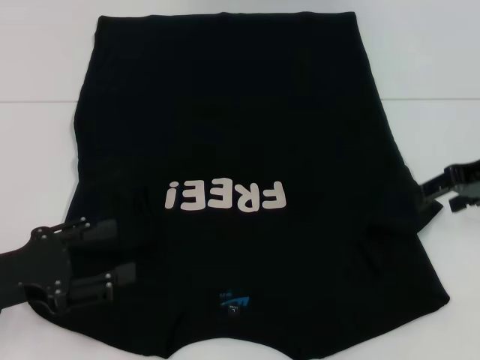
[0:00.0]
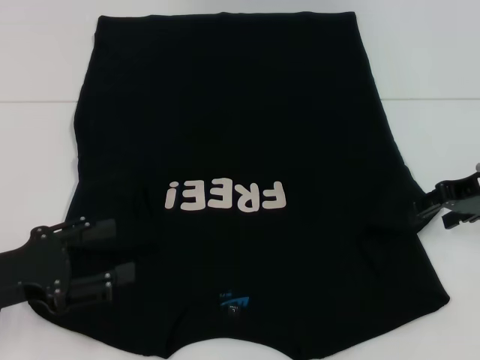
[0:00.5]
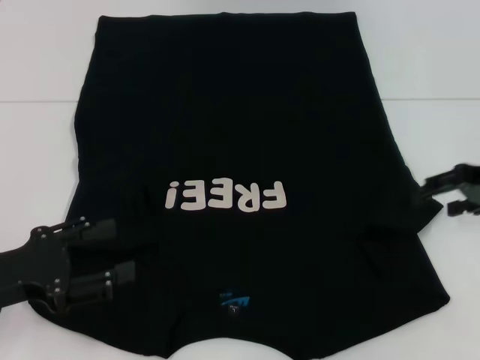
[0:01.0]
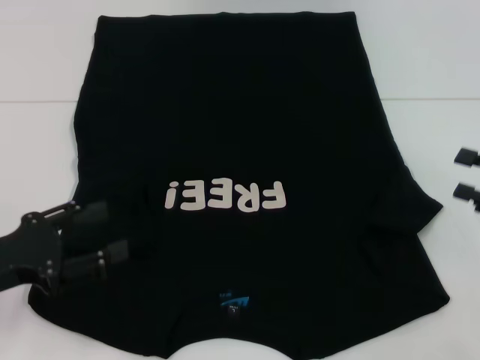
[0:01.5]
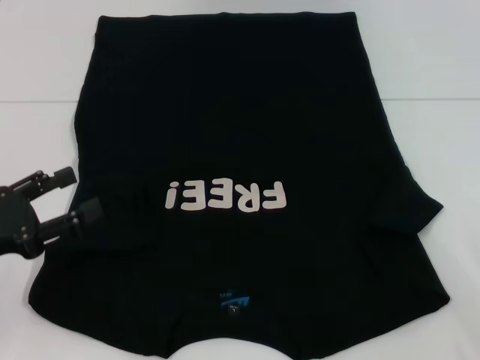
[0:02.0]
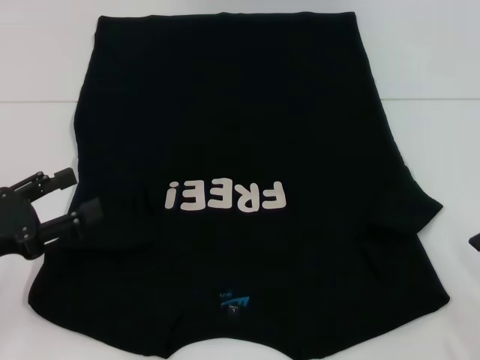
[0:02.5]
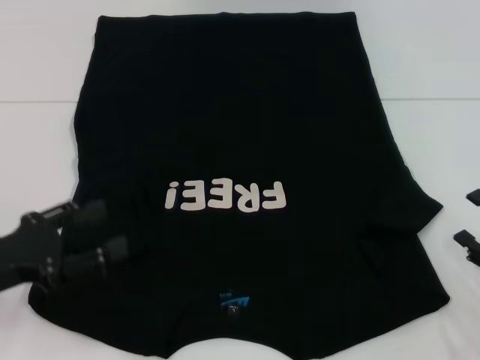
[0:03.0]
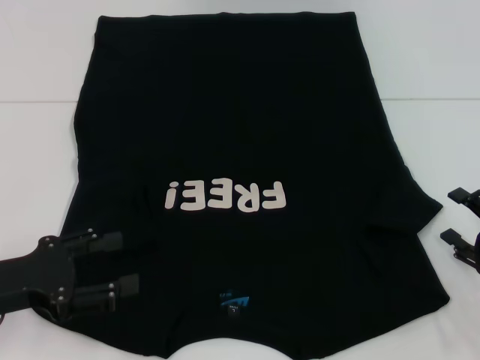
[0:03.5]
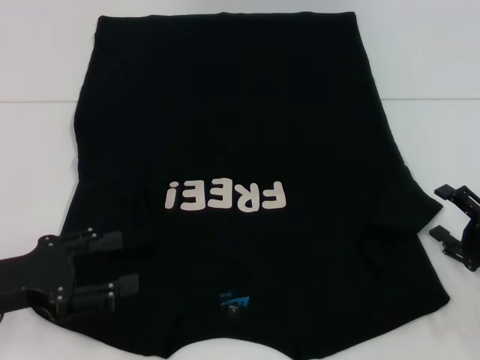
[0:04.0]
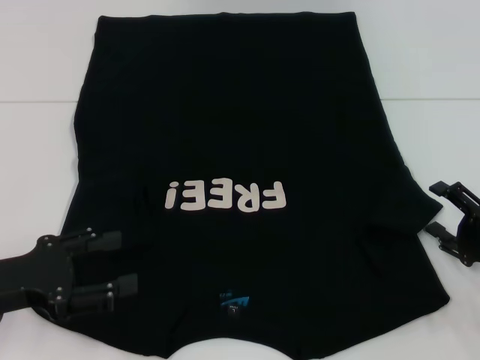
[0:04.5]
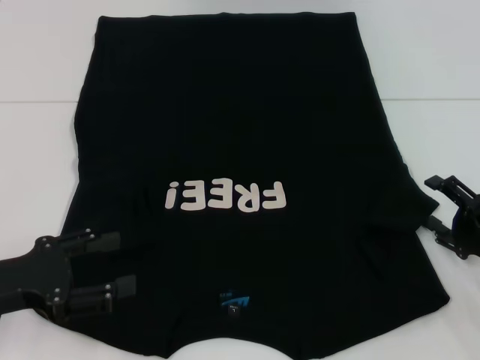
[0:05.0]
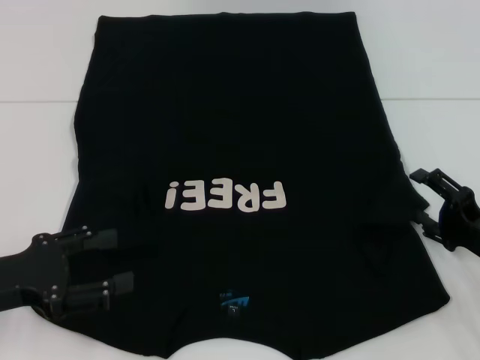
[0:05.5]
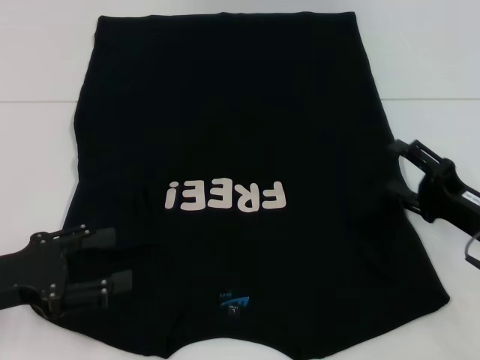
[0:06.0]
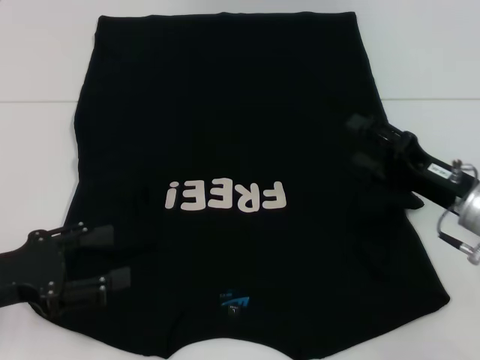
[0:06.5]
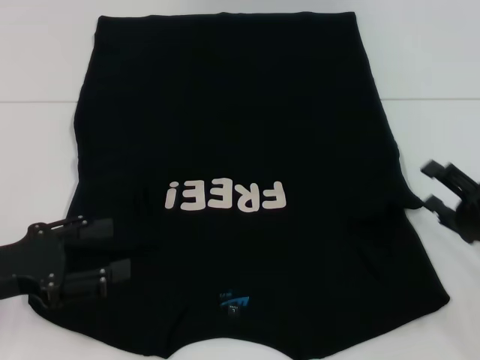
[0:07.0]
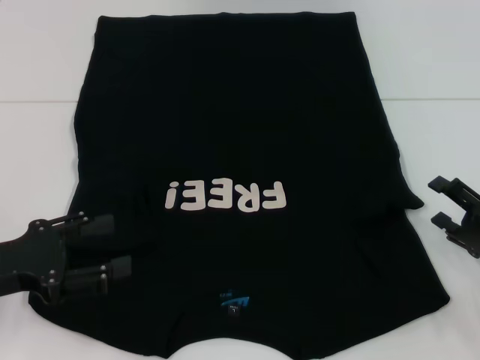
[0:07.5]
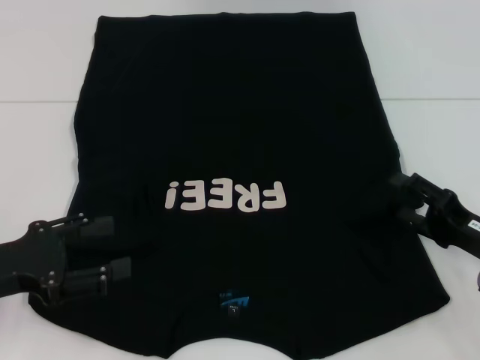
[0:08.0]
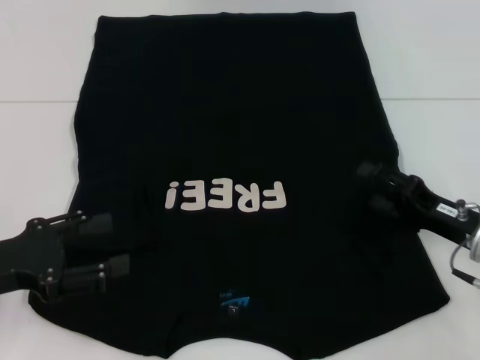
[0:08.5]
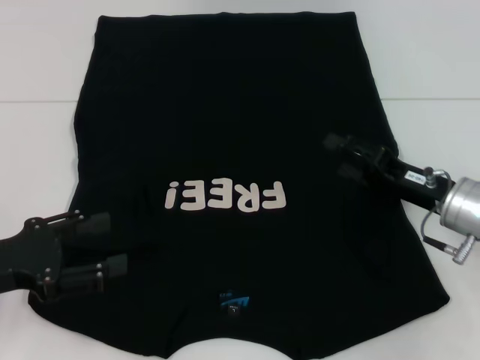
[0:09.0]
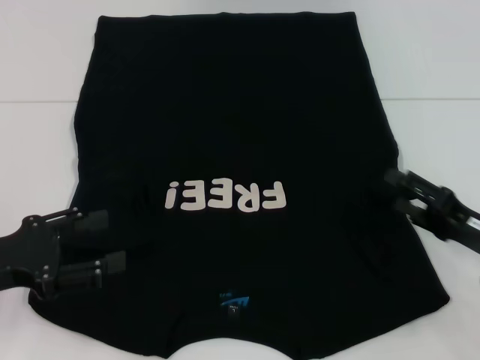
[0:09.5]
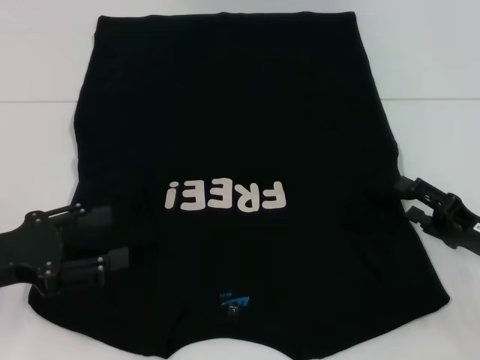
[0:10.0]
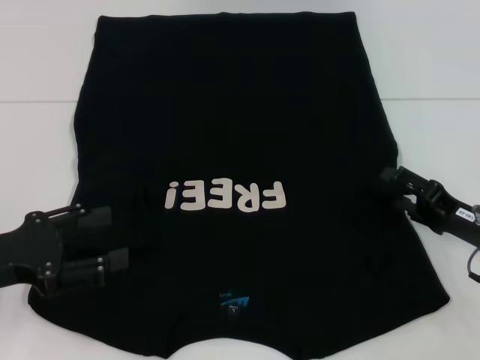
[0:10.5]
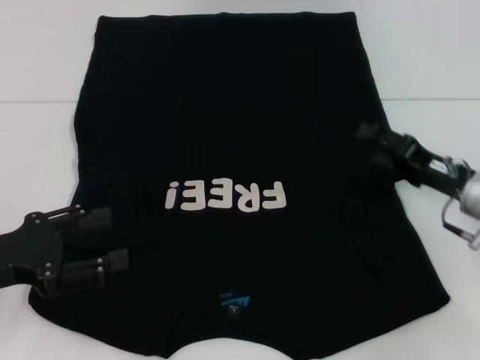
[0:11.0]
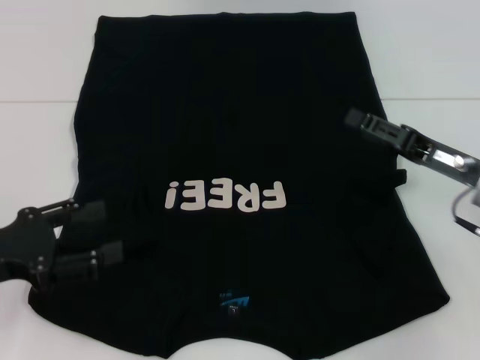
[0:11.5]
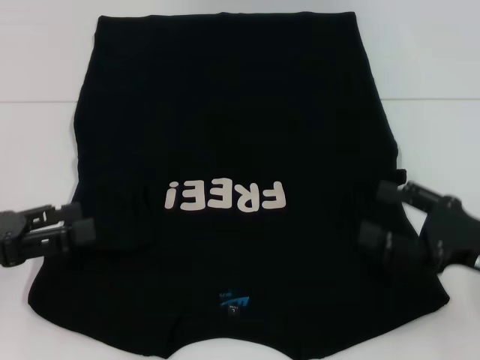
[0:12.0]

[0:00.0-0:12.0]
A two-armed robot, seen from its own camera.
Step, 0:00.0 to 0:06.5: Fold the bottom right sleeve with your right hand.
0:00.0 to 0:02.0: The right gripper goes some 25 cm backward and downward.
0:02.0 to 0:04.0: The right gripper goes approximately 5 cm forward.
0:04.0 to 0:06.0: The right gripper moves about 5 cm.
0:10.0 to 0:12.0: The right gripper goes some 5 cm upward, and reaches some 5 cm forward, then returns.

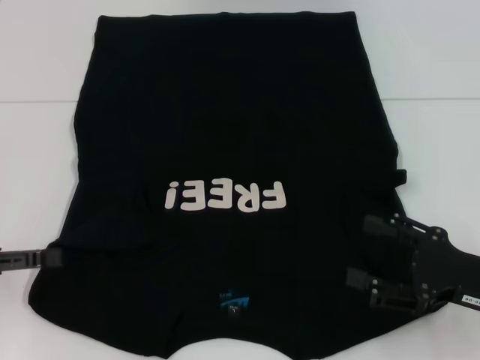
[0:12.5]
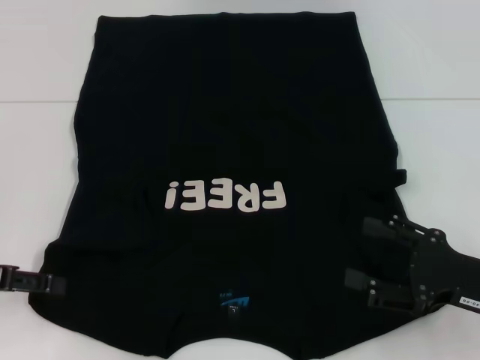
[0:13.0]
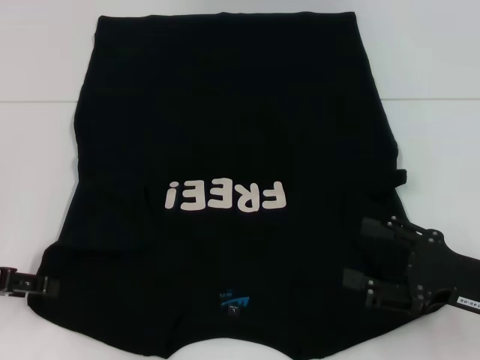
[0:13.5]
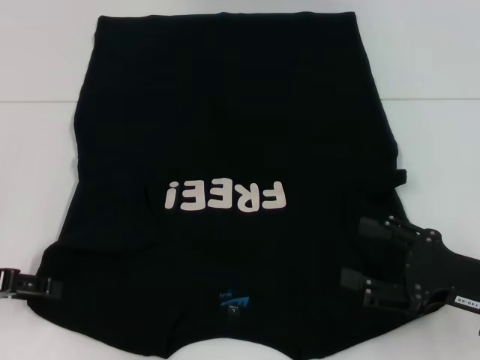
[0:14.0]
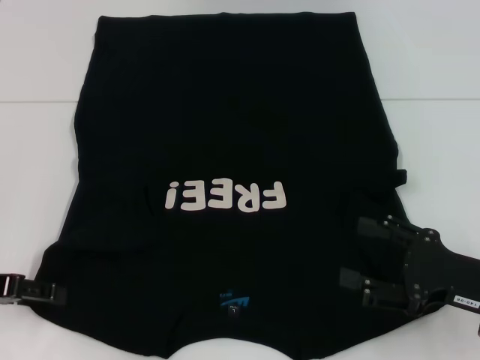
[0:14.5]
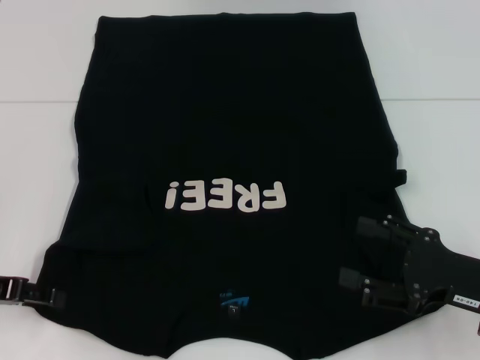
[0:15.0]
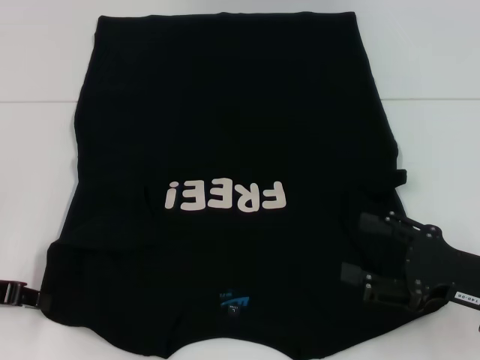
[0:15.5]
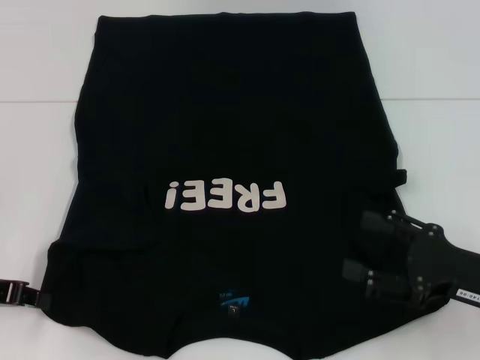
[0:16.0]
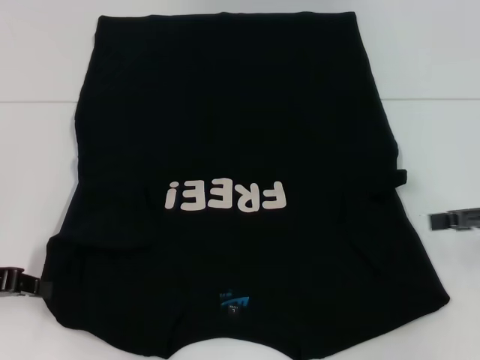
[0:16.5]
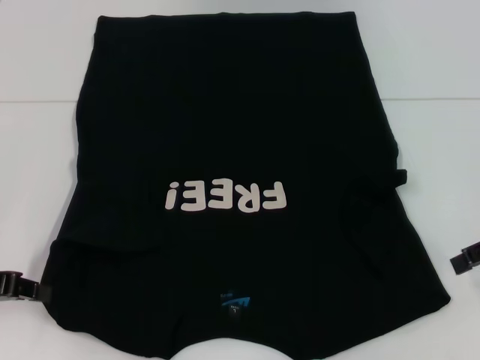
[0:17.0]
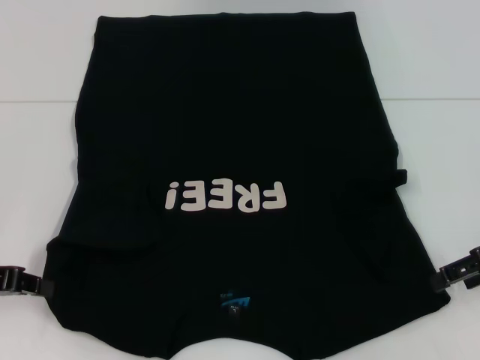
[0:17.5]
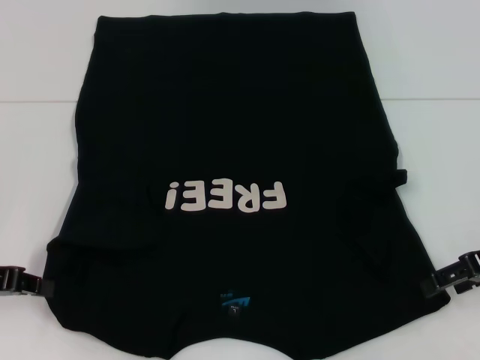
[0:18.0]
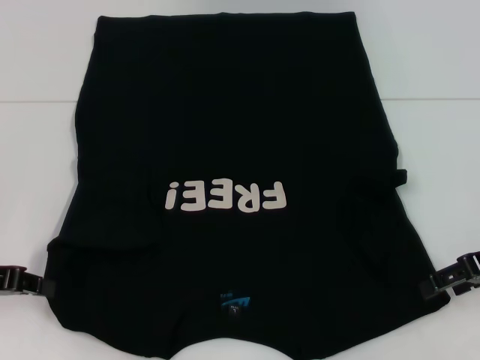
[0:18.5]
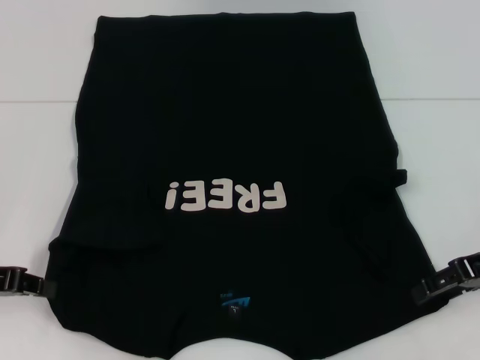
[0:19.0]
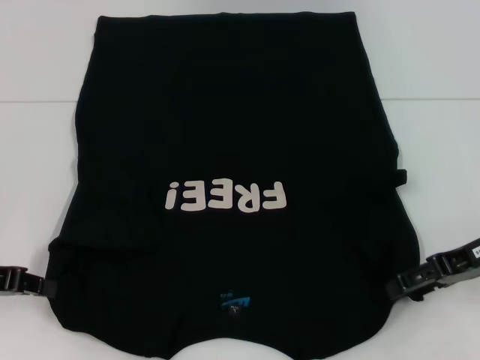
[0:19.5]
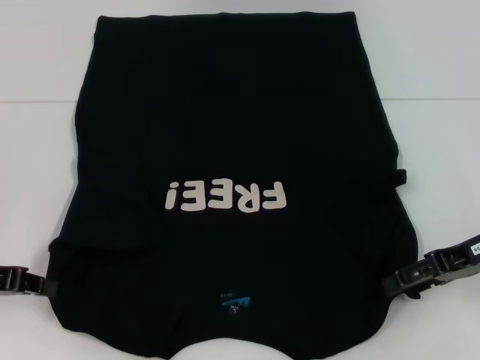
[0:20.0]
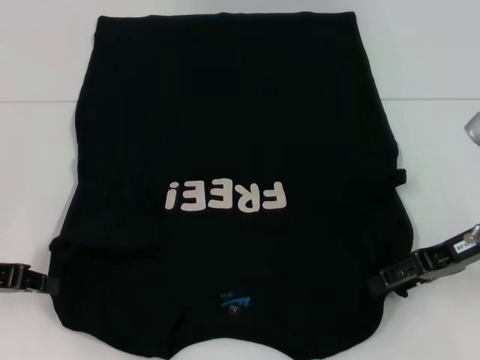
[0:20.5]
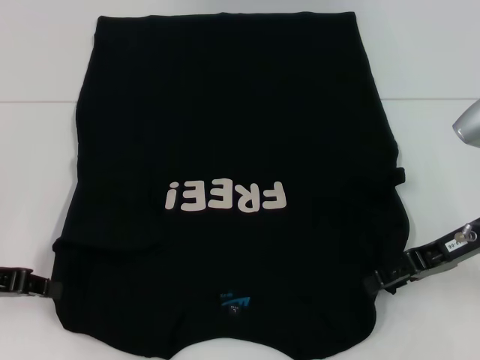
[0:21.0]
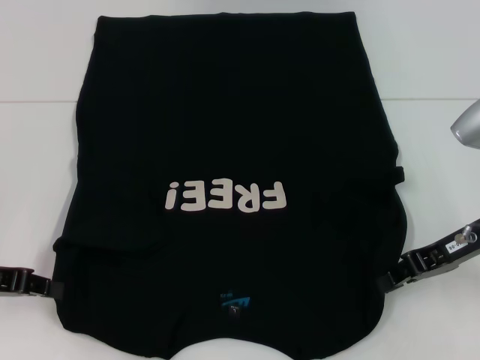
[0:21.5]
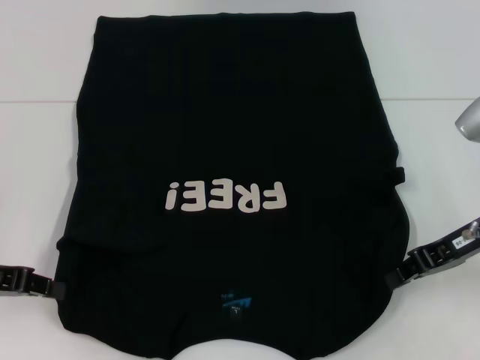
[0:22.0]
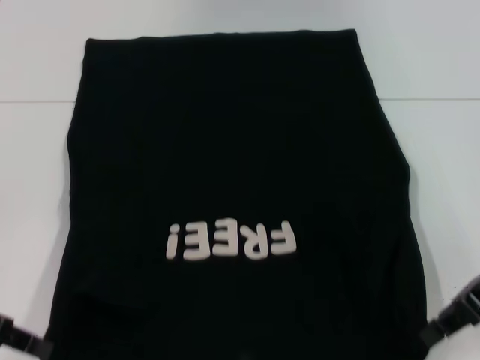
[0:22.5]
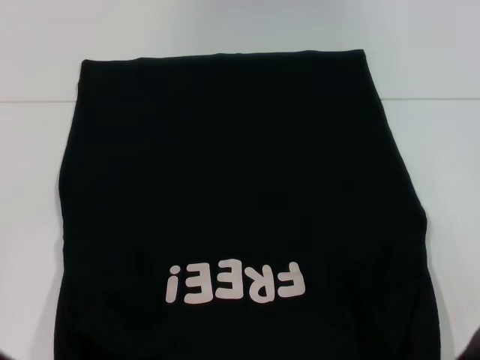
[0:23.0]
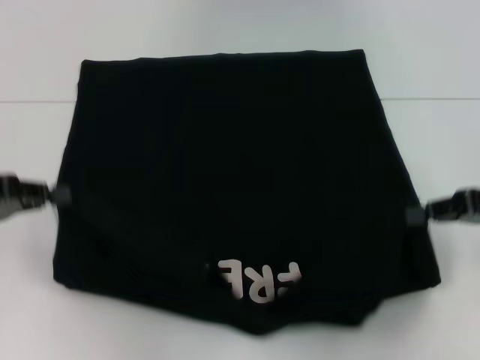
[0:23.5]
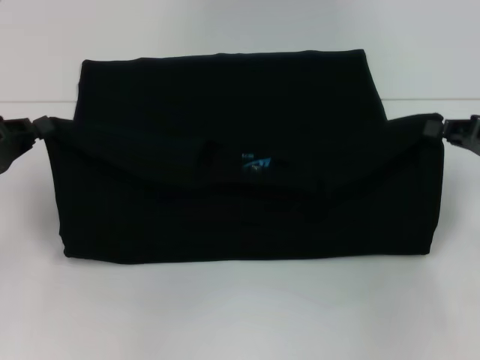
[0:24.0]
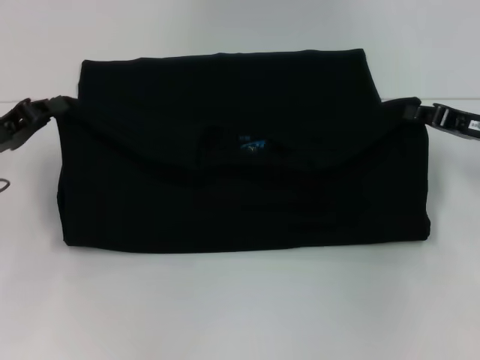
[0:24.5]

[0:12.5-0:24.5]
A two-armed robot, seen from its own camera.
Step, 0:12.5 to 0:16.5: Grab the bottom left corner with your left hand.
Step, 0:17.0 to 0:21.5: Grab the bottom right corner with your right hand.
0:14.5 to 0:16.5: The left gripper closes its fingers; the right gripper heads upward, forward and to the right, covering about 15 cm.
0:18.5 to 0:20.5: There are only small adjustments of the grippers.
0:20.5 to 0:22.5: The right gripper closes.
0:22.5 to 0:24.5: Both grippers move forward, some 5 cm.

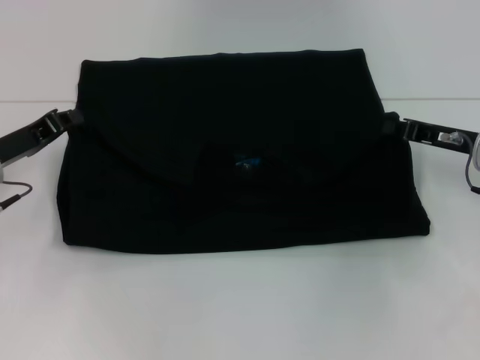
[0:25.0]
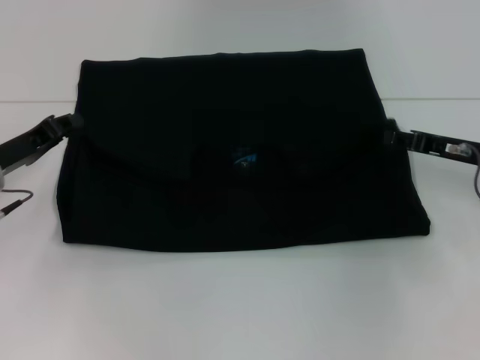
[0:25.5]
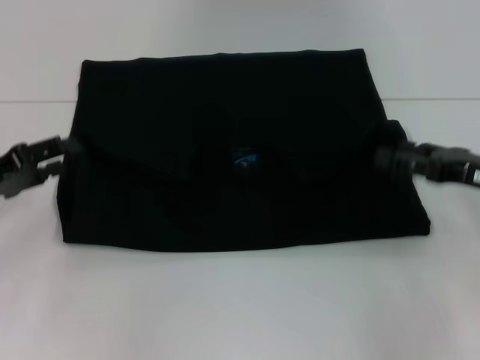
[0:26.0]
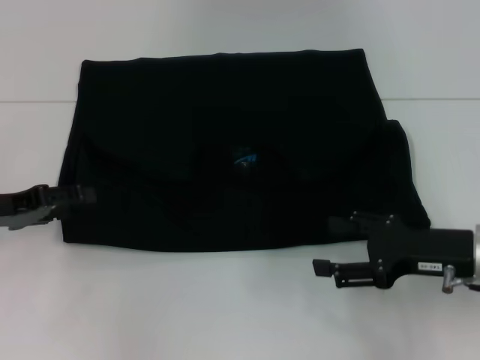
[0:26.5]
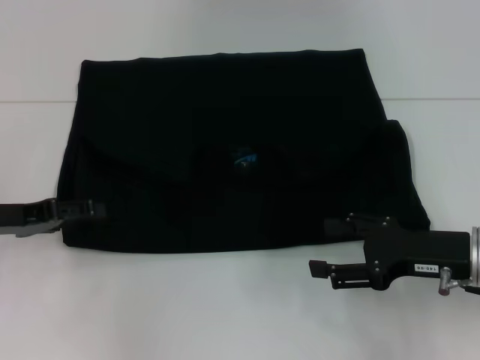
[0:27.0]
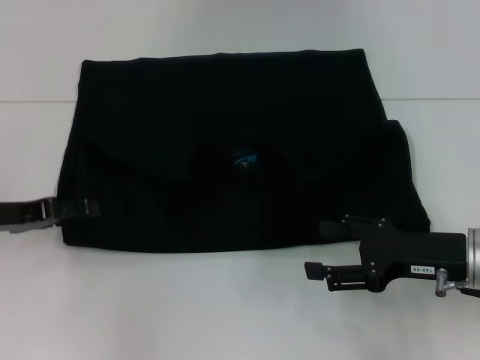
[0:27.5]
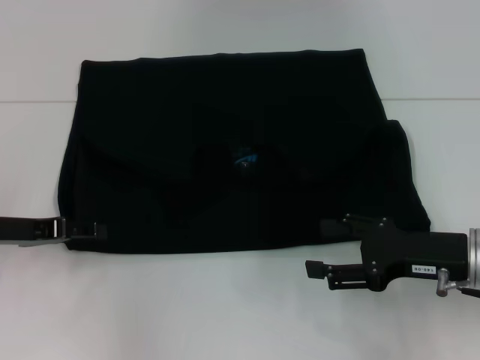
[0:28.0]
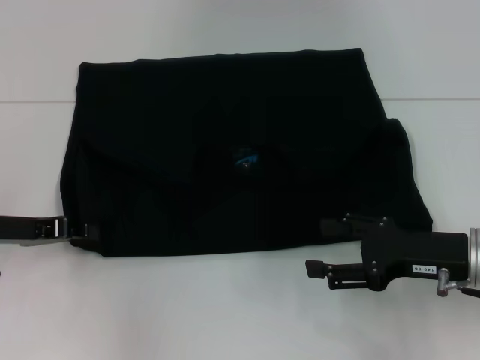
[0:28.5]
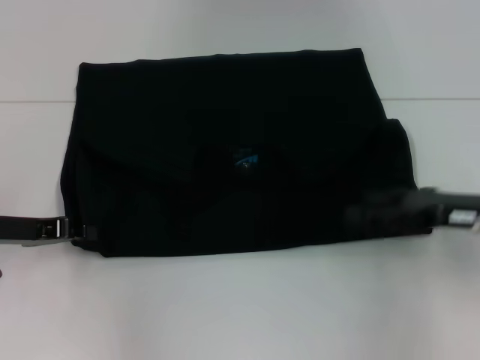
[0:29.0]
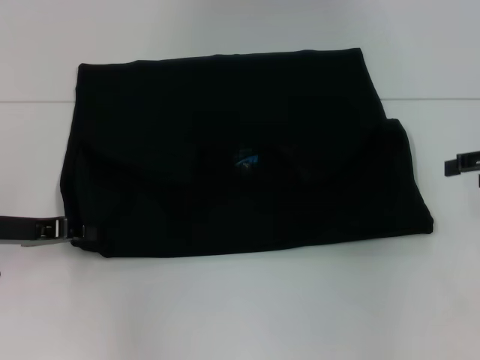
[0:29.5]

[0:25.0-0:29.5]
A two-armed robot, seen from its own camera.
0:25.0 to 0:27.0: The left gripper opens up. Meanwhile the right gripper heads backward, covering roughly 10 cm, and opens its fingers.
0:27.0 to 0:29.5: The left gripper closes up. The right gripper moves to the right, upward and forward, about 15 cm.
